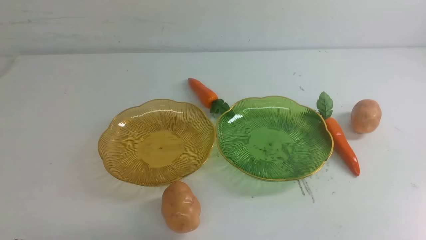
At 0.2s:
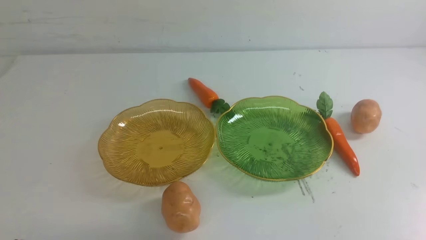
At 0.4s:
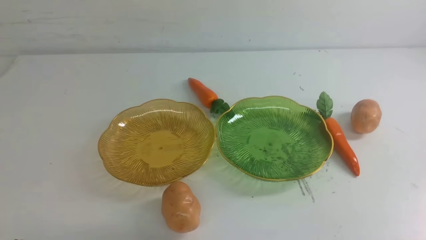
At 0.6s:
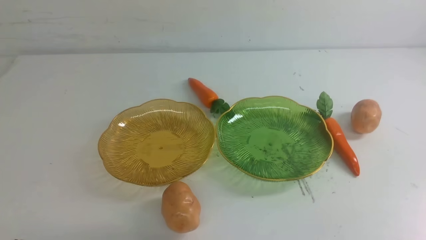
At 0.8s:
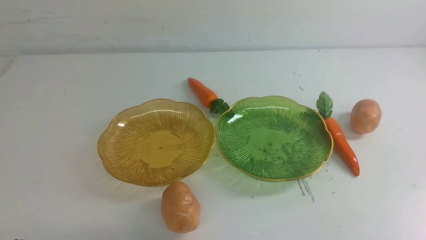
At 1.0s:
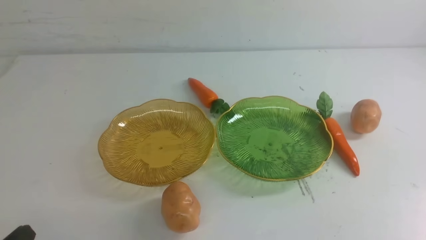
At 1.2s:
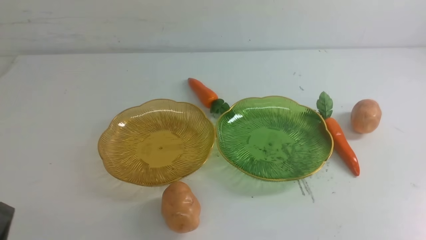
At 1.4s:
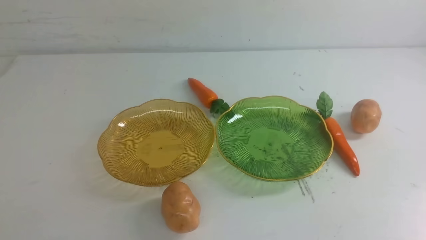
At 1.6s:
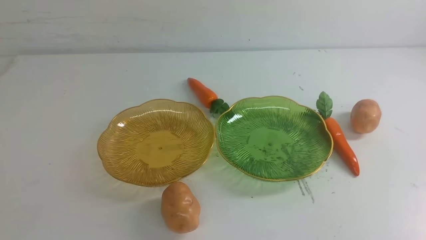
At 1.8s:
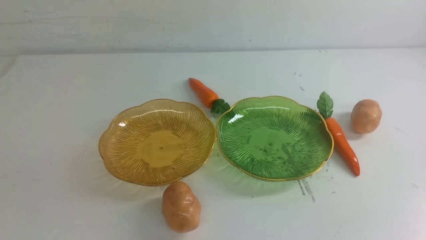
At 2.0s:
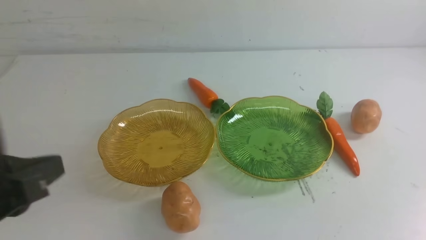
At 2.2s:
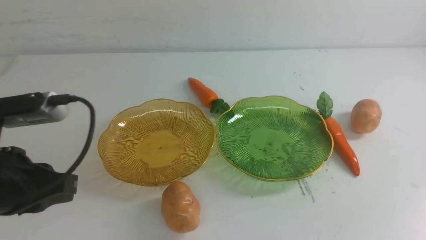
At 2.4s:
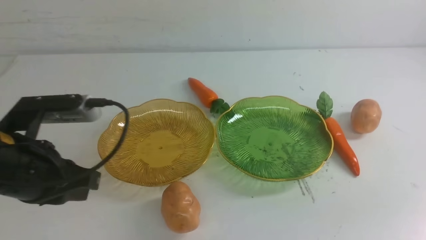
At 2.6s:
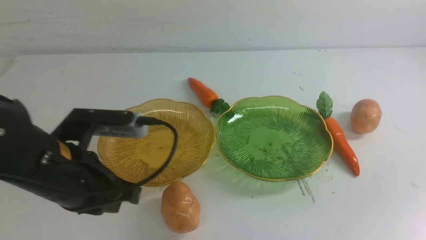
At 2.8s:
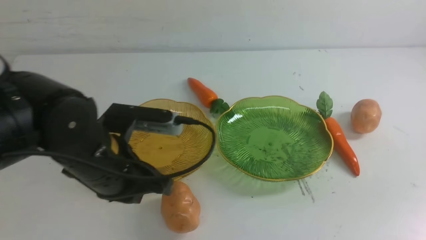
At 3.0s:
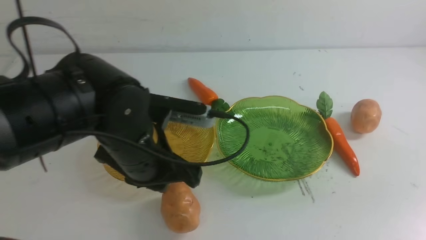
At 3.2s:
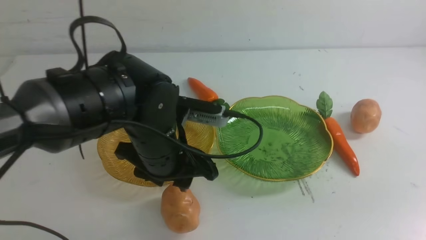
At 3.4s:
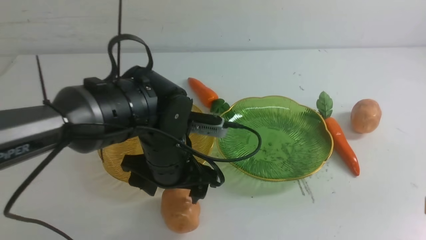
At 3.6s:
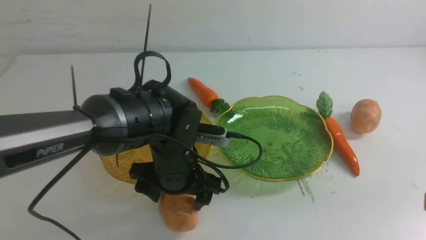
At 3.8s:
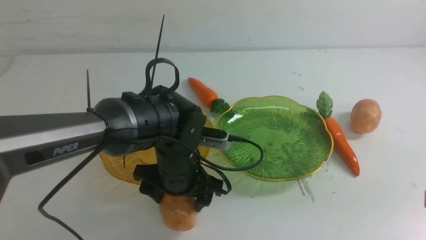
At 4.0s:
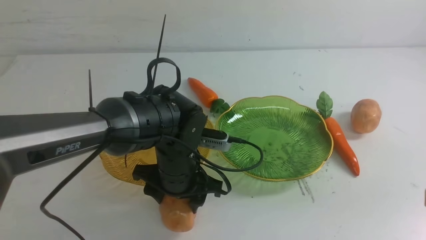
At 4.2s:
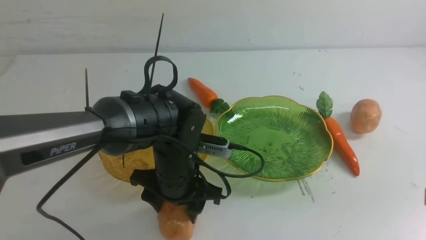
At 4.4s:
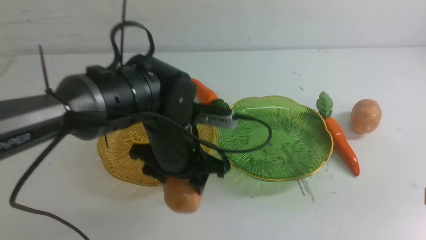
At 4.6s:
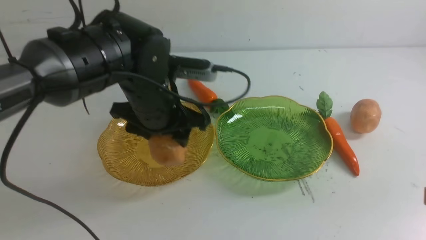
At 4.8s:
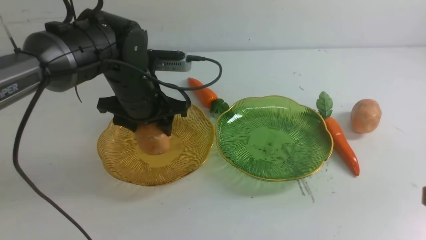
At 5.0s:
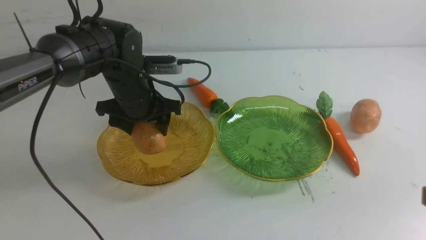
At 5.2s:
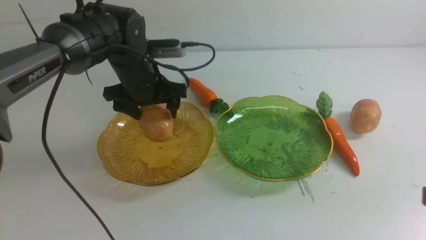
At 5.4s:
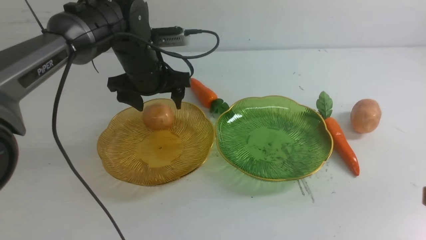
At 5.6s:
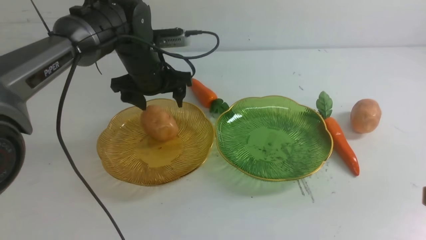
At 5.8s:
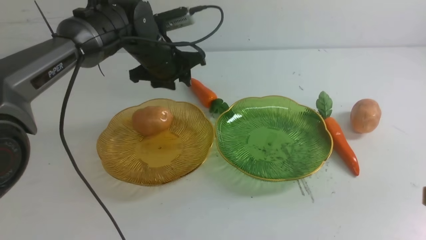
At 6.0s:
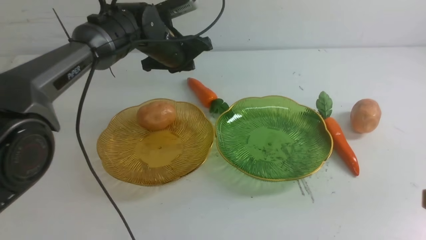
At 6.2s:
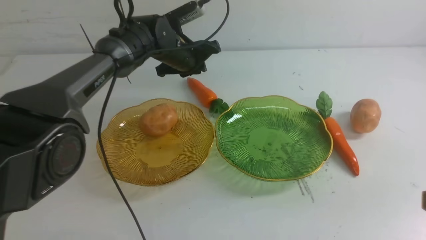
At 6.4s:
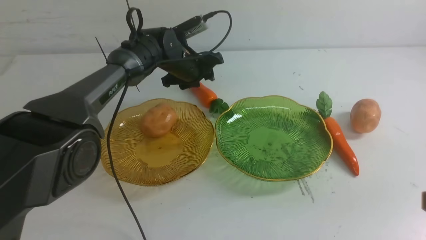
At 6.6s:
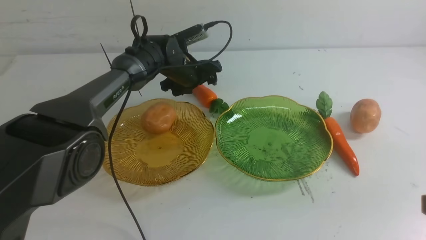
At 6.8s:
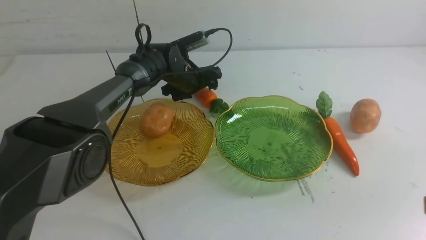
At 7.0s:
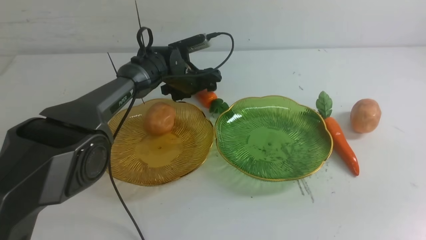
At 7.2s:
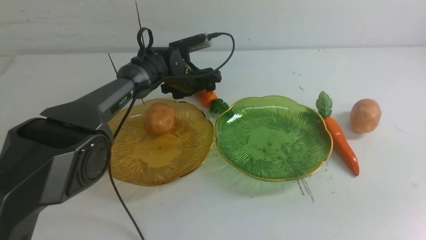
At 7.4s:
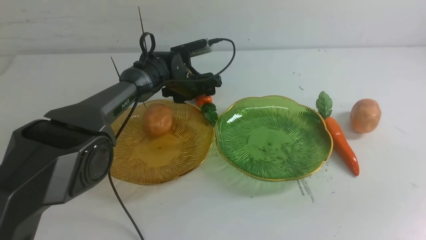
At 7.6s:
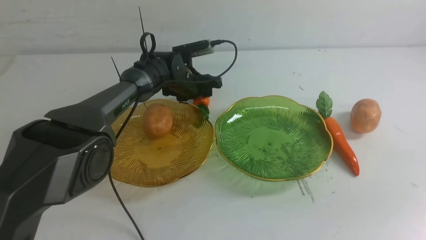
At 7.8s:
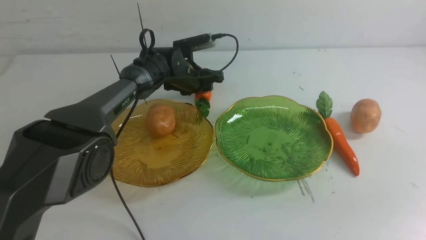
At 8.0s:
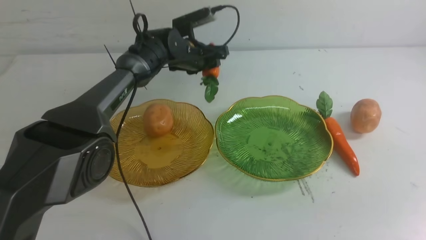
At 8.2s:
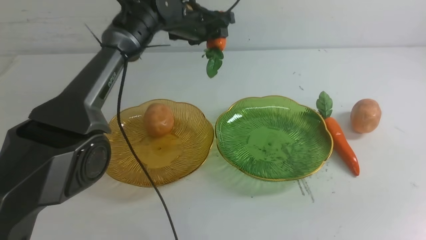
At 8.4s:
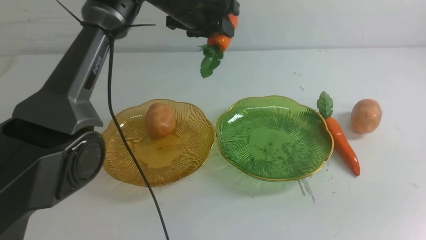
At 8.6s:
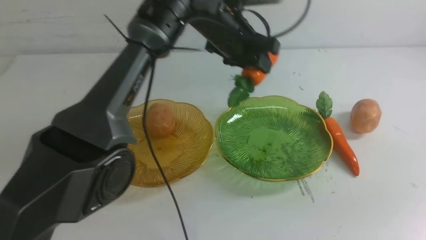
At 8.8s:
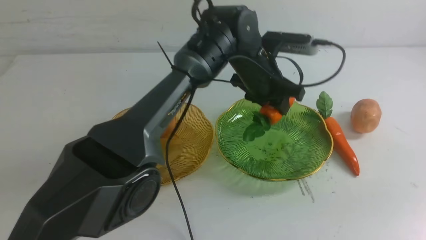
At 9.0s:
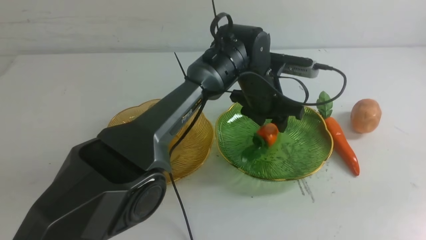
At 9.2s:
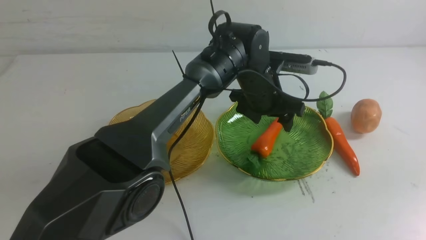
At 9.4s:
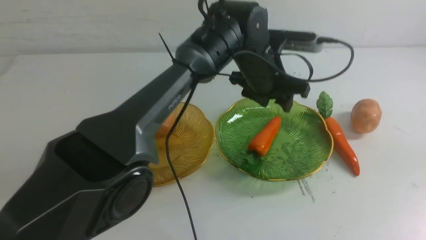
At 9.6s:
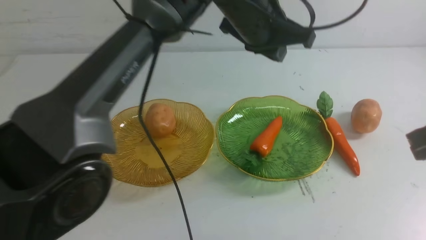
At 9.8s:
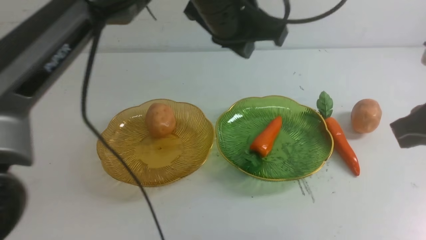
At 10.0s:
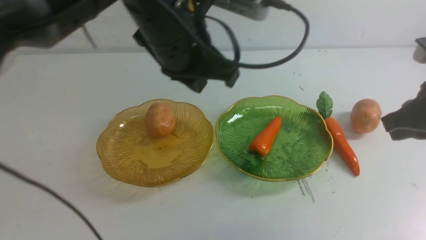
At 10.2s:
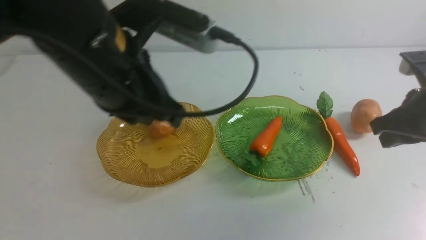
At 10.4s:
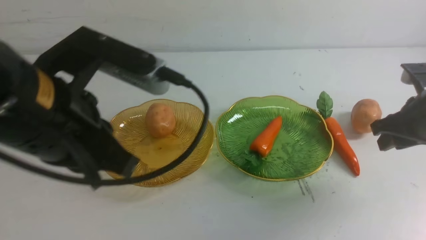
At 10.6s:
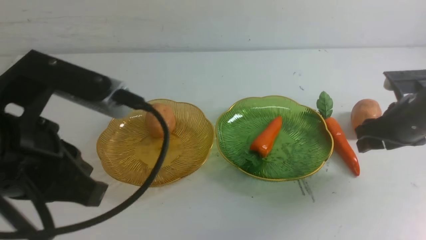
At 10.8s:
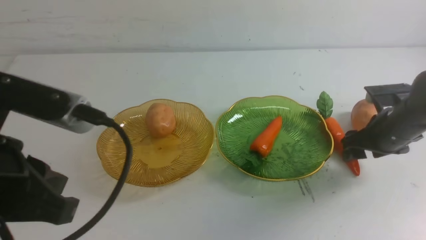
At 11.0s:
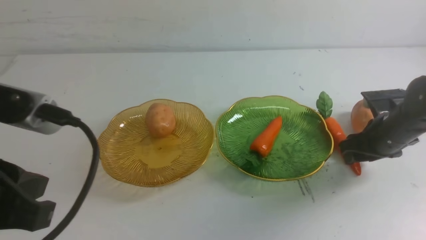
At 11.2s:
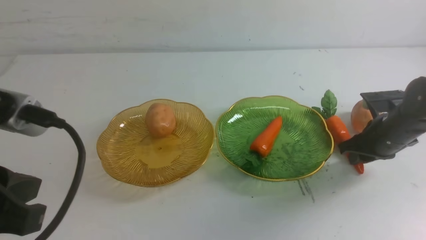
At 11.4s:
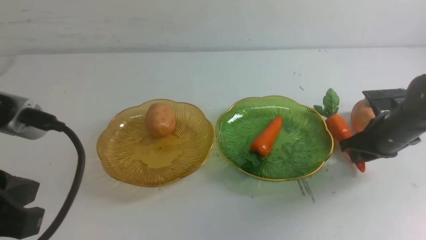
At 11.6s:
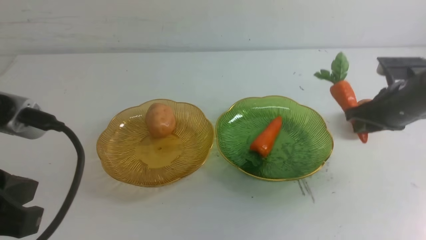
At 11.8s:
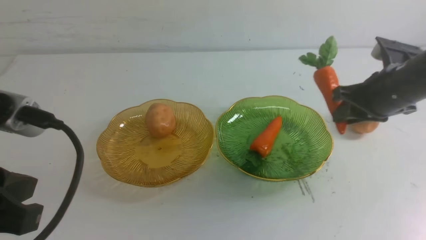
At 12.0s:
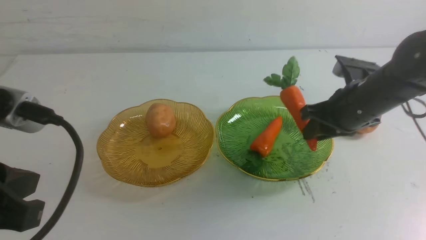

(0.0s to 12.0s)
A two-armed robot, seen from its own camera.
Step, 0.0s - 5.2s: Grab a potato with your left arm and put it on the left plate.
Step, 5.4s - 9.0s: use the left arm to grab a carrot and put it into the right plate.
1.6s - 3.0s: The left gripper is displaced forward and to the right by some 30 cm, and opens its fingers. The right gripper heads upward, covering approximately 10 cm.
3.0s - 4.4s: The left gripper heads forward and to the left, covering about 15 cm.
4.4s - 6.0s: The left gripper shifts about 15 cm forward and downward, and closes, then opens again.
6.0s - 7.6s: The left gripper heads upward, covering some 10 cm, and closes.
7.6s - 9.0s: The left gripper heads to the right and backward, covering roughly 20 cm; the right gripper is displaced forward by some 5 cm.
9.0s - 10.4s: The left gripper travels backward and to the left by some 40 cm, and closes its fingers. Meanwhile the right gripper moves forward and downward, some 25 cm, and opens.
10.4s - 12.0s: The right gripper heads upward, covering about 10 cm, and closes, then opens again.

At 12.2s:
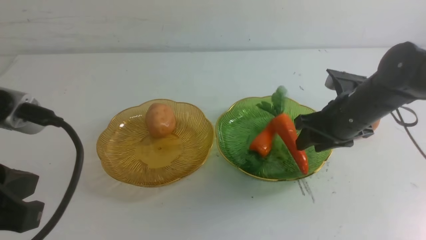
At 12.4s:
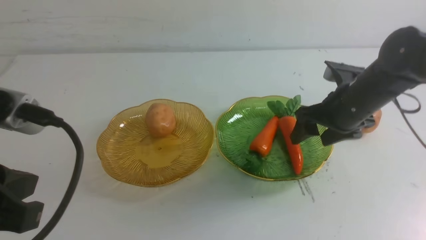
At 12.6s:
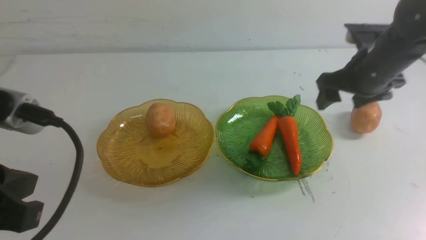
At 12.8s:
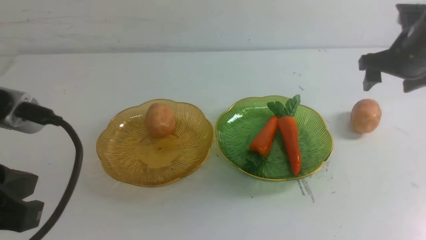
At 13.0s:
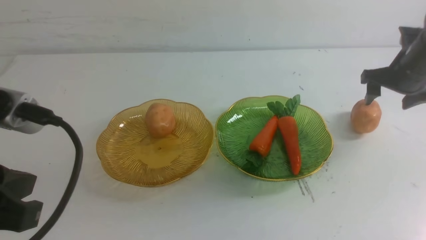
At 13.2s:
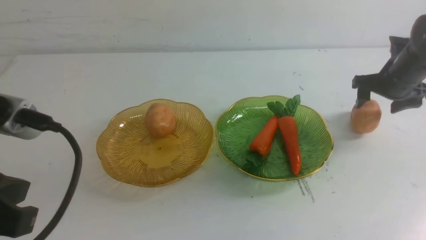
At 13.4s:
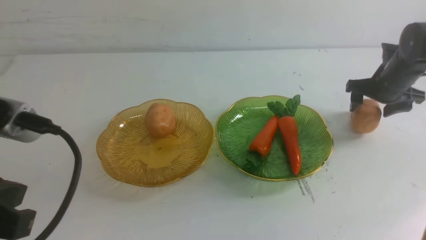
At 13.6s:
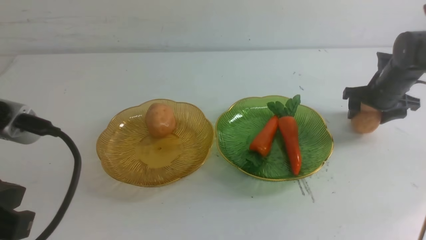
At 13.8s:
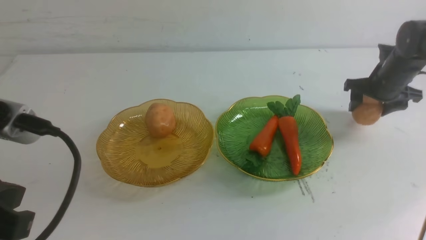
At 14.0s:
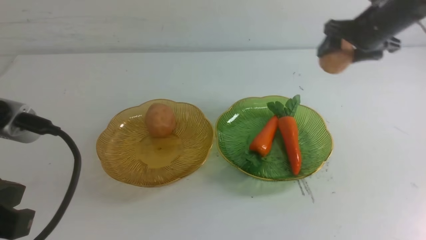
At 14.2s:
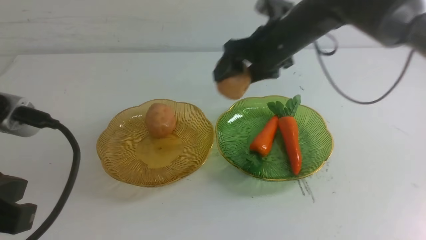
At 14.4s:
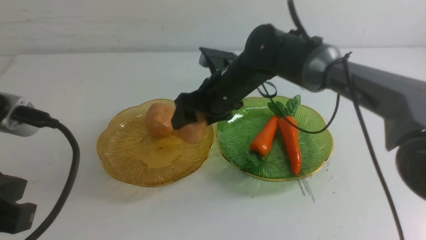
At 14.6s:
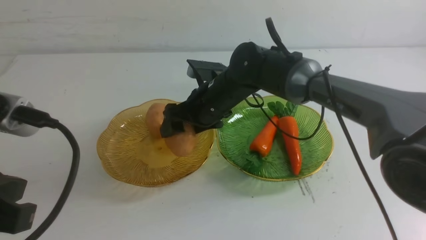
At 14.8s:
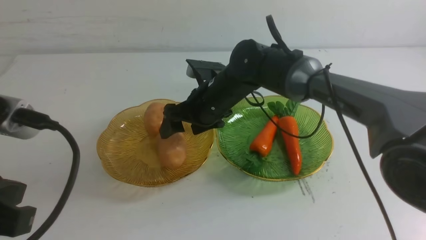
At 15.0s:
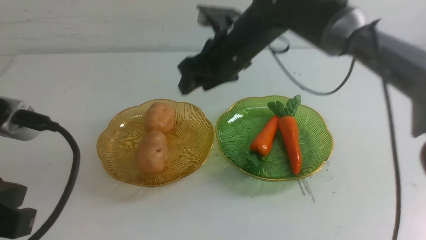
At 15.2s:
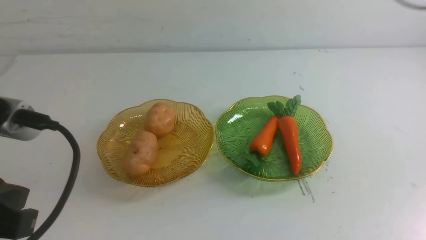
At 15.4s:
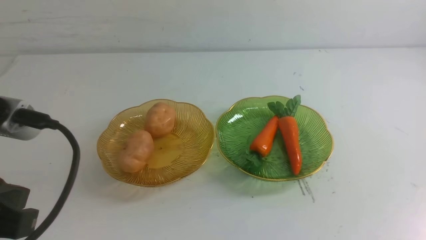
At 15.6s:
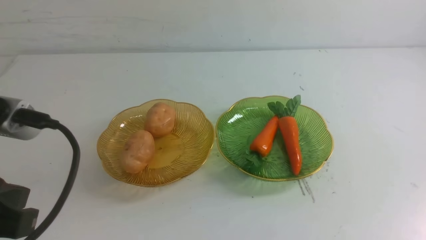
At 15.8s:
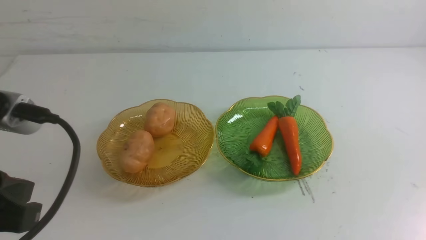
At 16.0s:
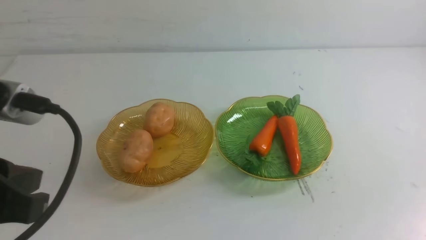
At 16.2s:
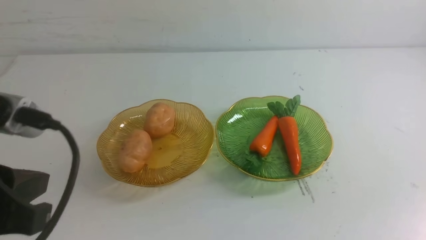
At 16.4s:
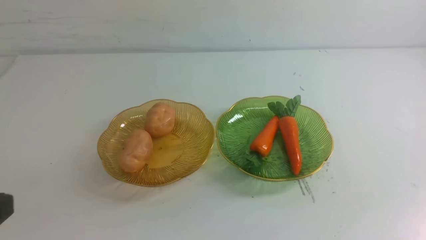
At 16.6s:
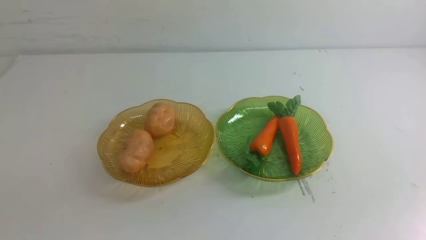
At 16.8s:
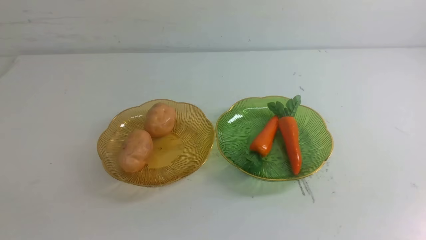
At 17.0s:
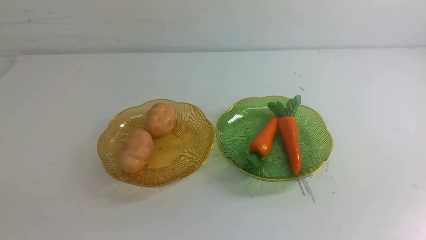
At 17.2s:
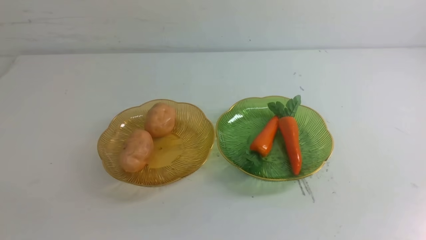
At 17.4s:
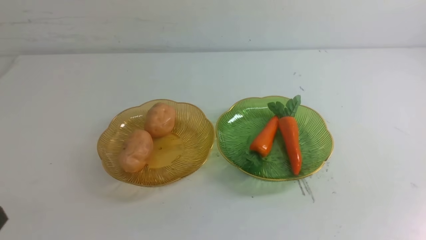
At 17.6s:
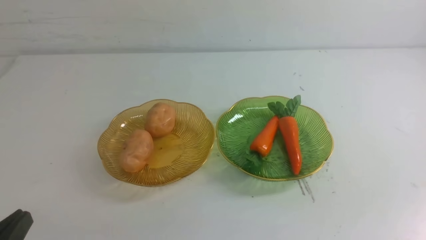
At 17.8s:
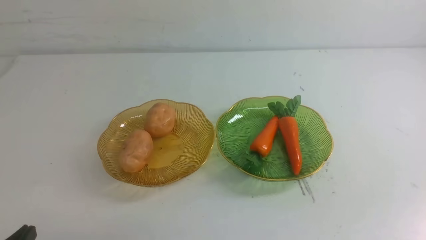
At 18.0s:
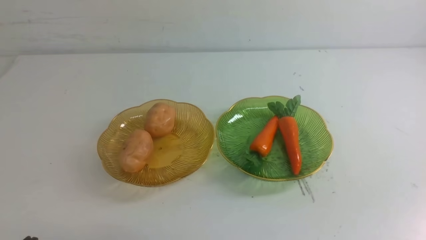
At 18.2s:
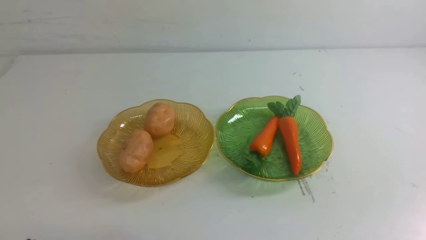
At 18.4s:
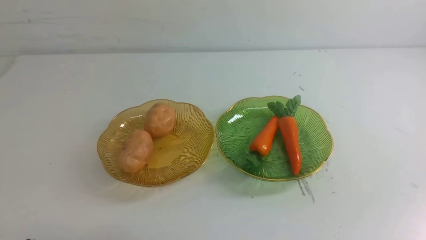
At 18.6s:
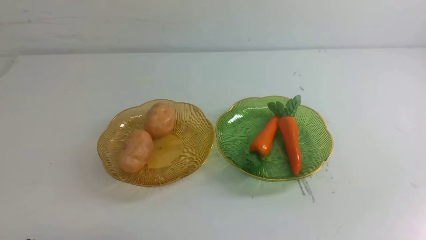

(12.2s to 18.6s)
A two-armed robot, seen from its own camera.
Step, 12.4s - 14.6s: Grab a potato with your right arm and put it on the left plate.
12.2s - 13.8s: The right gripper shifts approximately 30 cm to the left.
13.8s - 15.4s: The right gripper travels backward and to the right by approximately 50 cm, and closes.
15.4s - 17.0s: The left gripper moves downward, approximately 15 cm.
